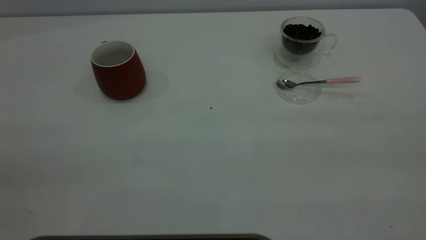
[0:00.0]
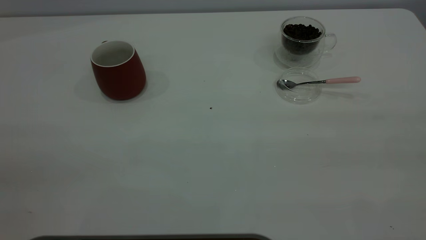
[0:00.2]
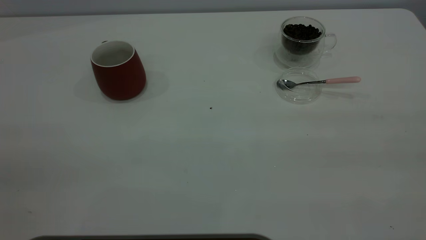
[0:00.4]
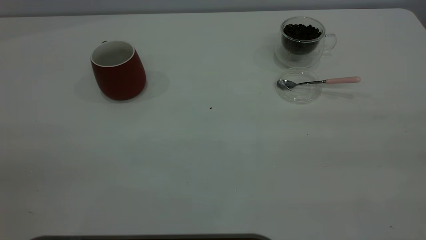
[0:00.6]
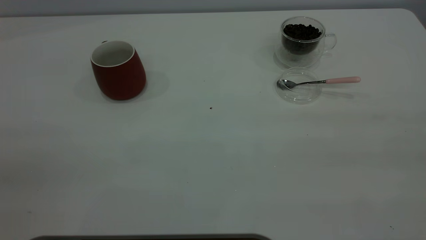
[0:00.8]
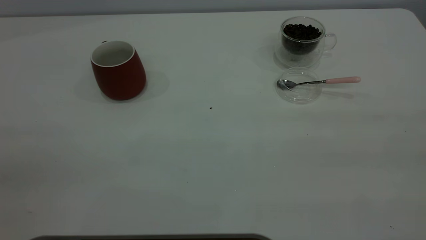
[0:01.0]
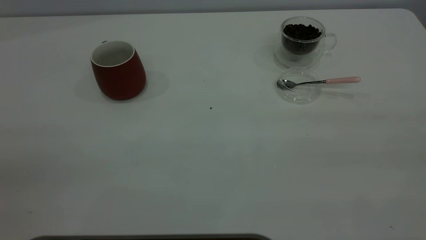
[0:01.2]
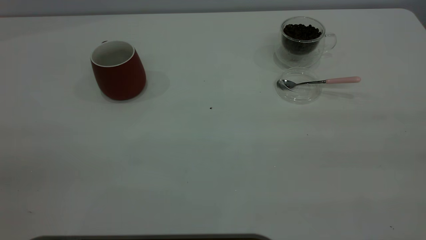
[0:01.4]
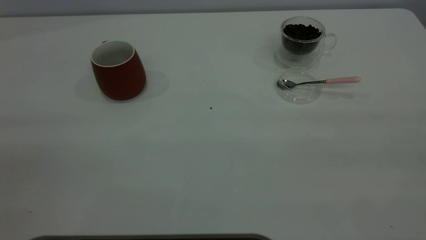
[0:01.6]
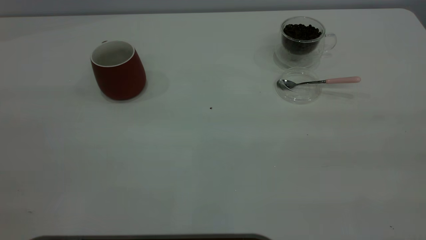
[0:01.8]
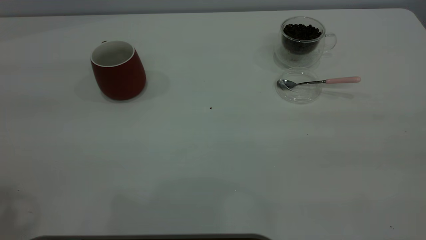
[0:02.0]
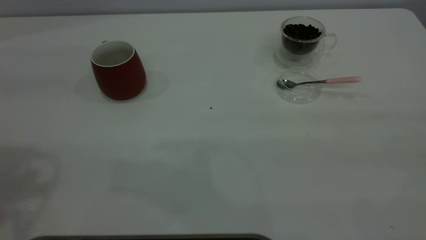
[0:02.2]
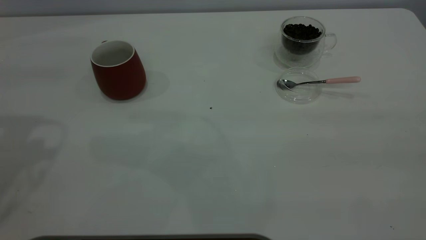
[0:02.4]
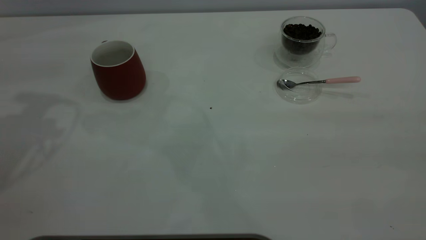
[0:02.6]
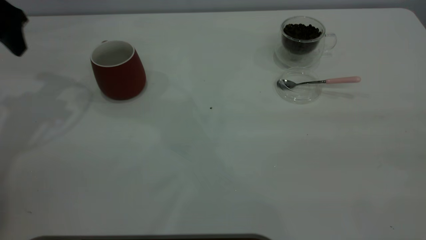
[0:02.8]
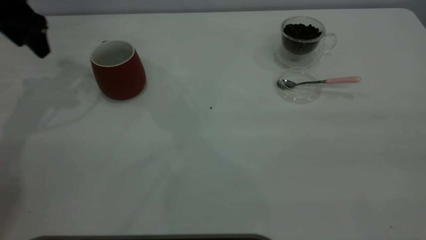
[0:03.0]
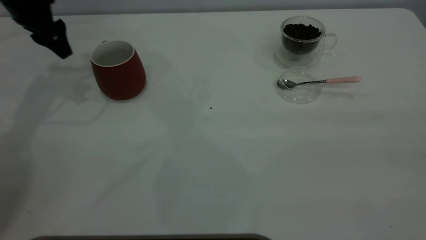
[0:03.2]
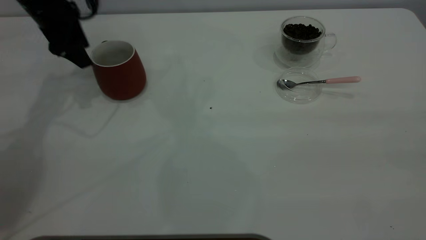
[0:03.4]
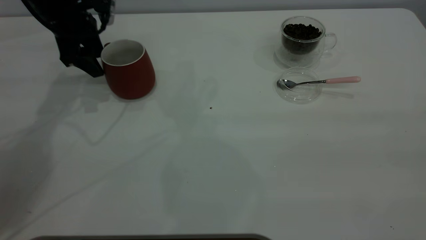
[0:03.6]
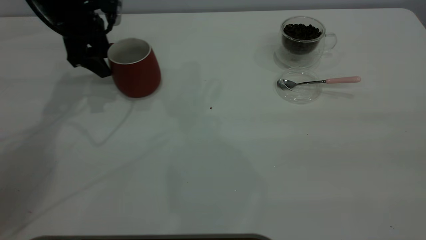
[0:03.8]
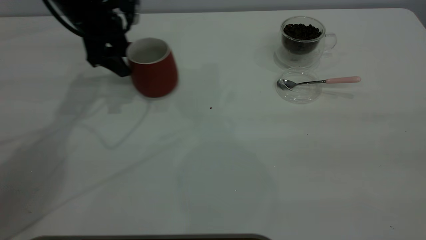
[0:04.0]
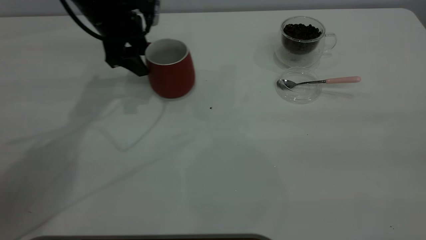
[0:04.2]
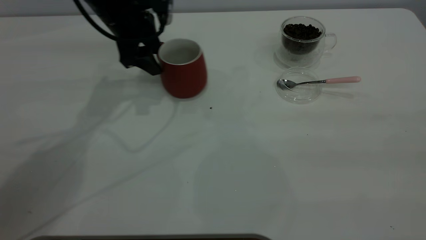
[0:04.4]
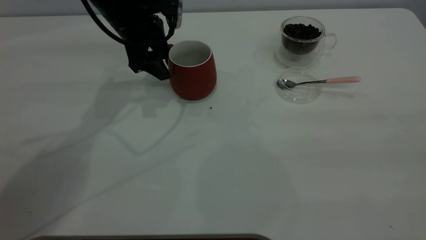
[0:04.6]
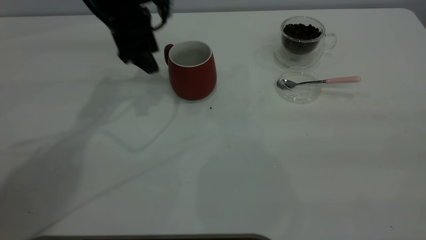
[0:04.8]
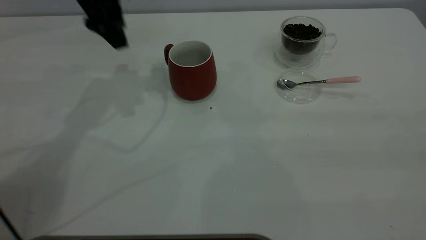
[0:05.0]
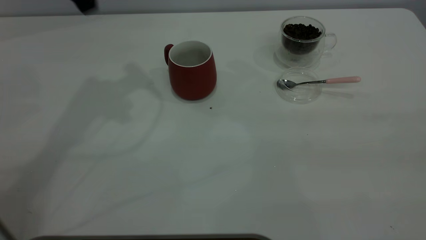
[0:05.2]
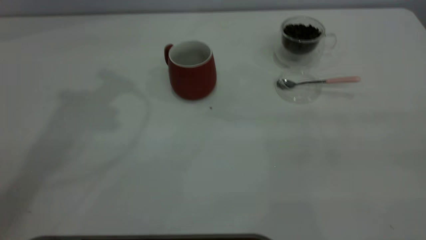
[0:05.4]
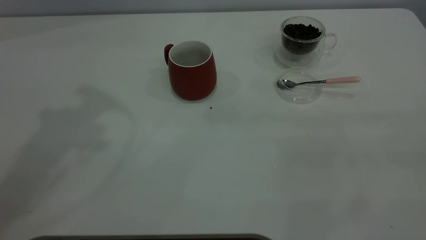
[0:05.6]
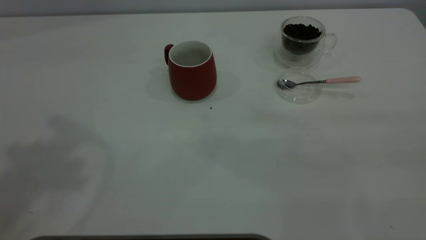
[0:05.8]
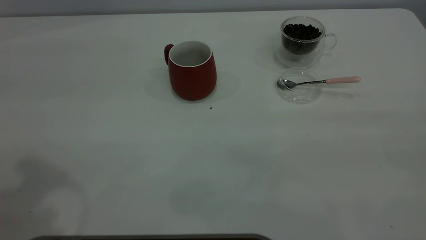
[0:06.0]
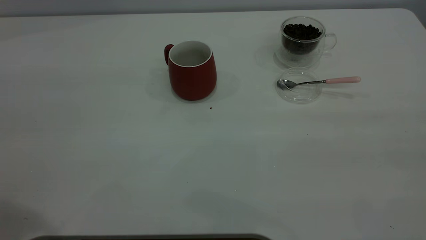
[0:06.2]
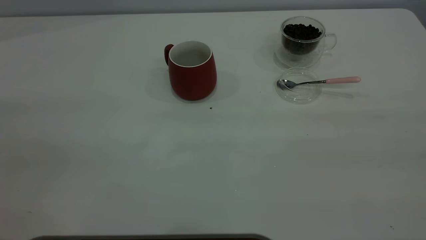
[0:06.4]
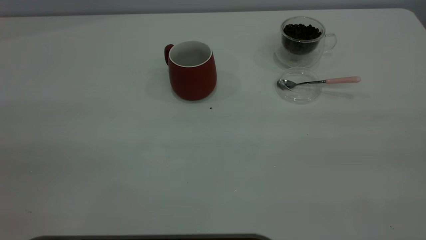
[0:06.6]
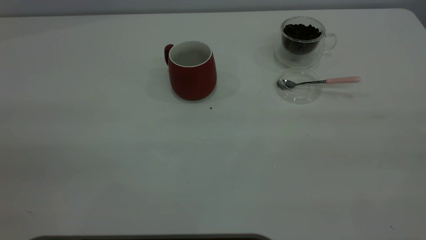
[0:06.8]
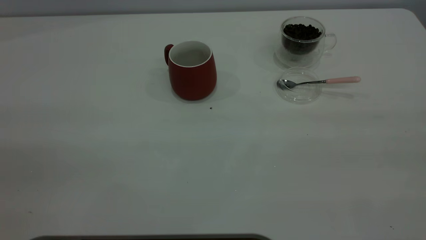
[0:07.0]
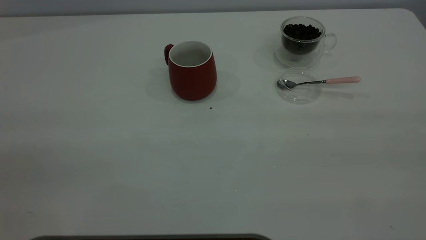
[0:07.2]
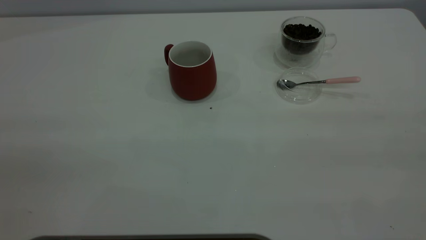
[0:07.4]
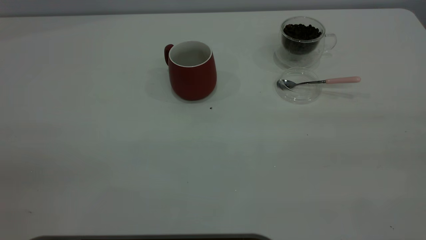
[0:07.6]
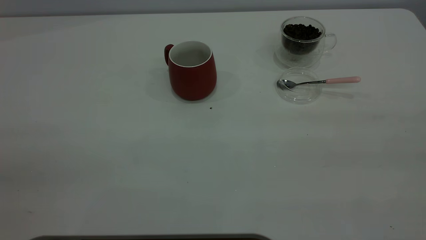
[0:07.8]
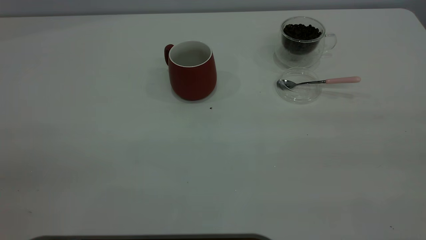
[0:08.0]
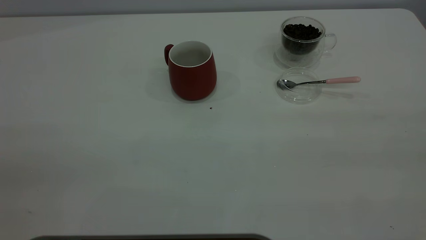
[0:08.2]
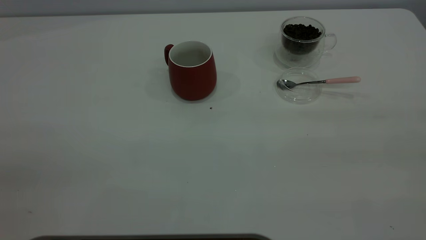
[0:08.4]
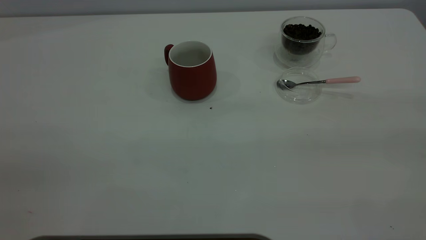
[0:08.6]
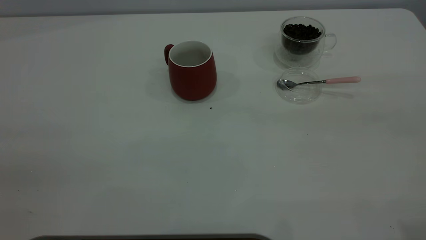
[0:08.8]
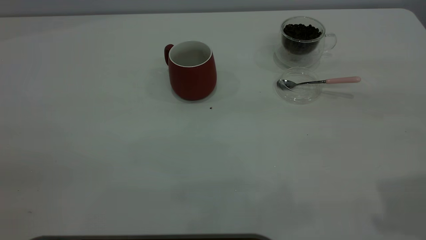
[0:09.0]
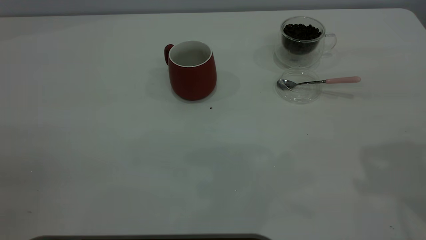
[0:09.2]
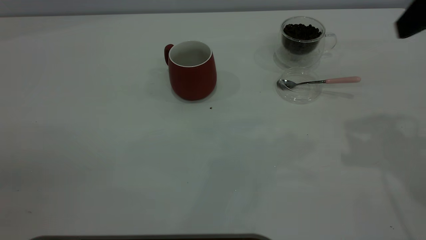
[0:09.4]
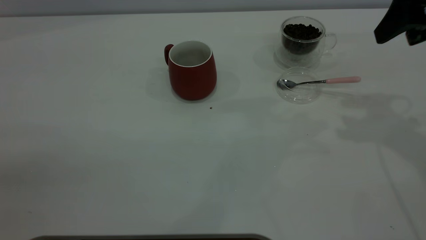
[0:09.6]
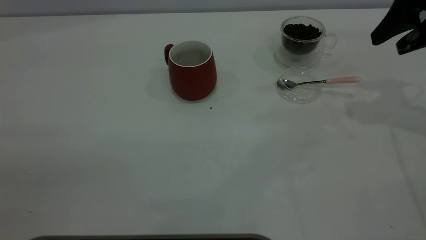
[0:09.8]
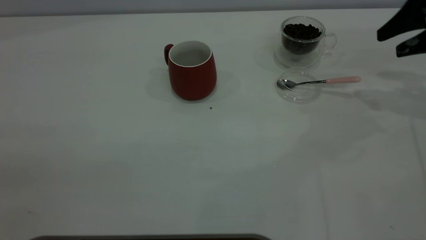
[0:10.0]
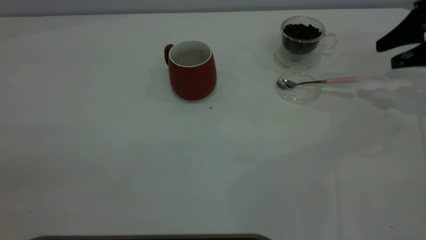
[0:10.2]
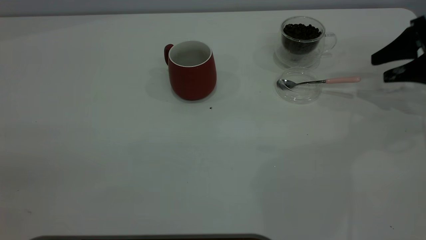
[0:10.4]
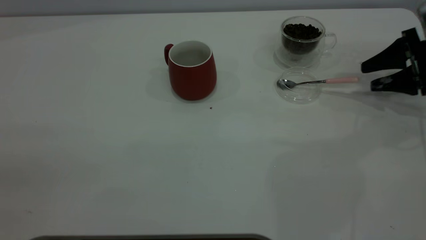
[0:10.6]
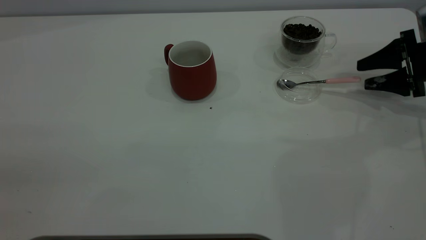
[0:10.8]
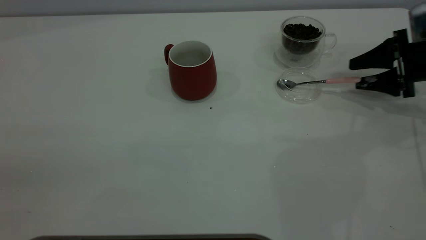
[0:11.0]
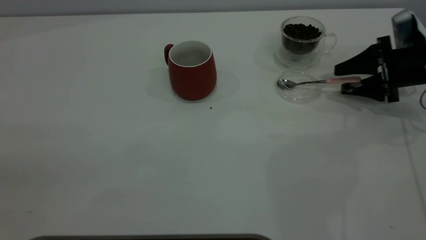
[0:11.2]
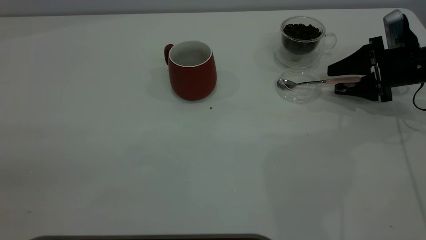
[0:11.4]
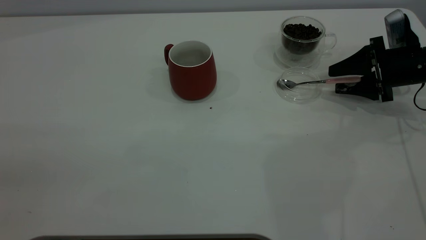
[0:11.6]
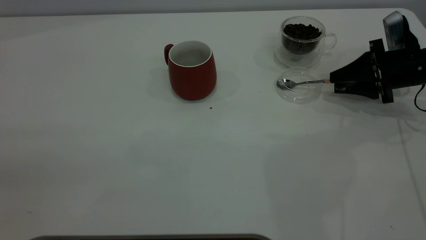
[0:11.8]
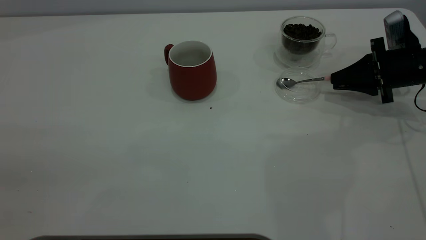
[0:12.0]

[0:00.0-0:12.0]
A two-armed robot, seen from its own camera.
Task of the whole recording: the left gripper place the red cup in the center of the table, the right gripper take the pink spoon from the cup lid and scoop out the coffee beans from the coffee cup and put them into the red cup, the right gripper put the spoon back into the cup lid.
Step, 0:00.0 to 0:04.8: Move the cup to the center of view.
0:01.6 to 0:03.0: The left gripper travels forward by about 40 cm.
0:03.0 to 0:04.4: The left gripper goes about 15 cm to the right.
0:04.4 to 0:06.0: The left gripper moves backward and upward, approximately 40 cm.
0:09.0 to 0:10.4: The right gripper moves downward, forward and to the right, roughly 35 cm.
0:10.4 to 0:12.0: The right gripper is displaced to the left by some 5 cm, and closes.

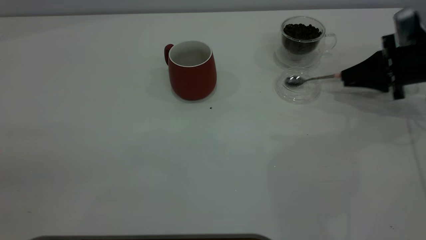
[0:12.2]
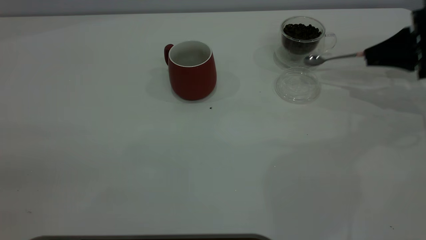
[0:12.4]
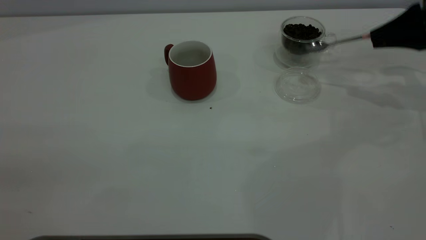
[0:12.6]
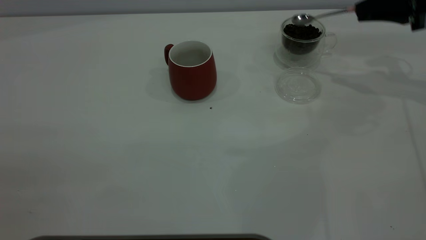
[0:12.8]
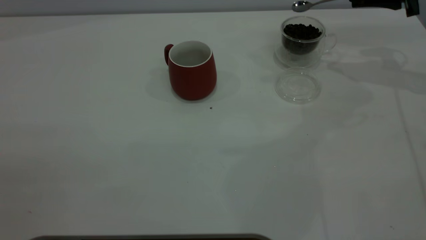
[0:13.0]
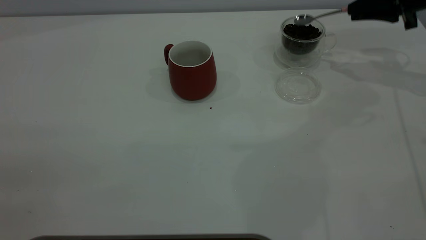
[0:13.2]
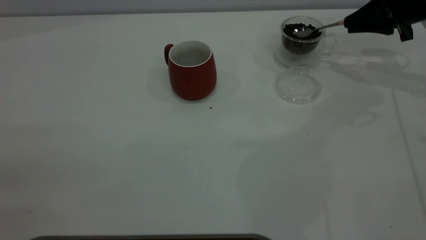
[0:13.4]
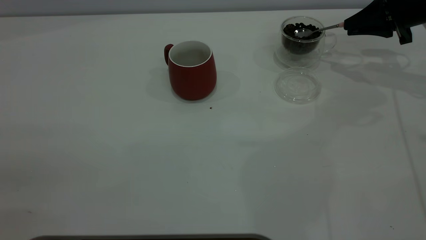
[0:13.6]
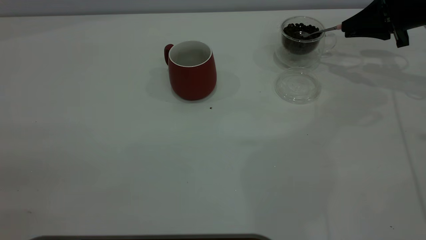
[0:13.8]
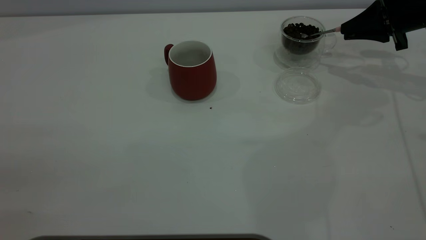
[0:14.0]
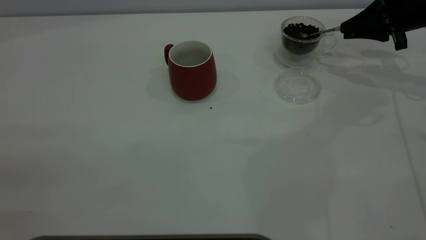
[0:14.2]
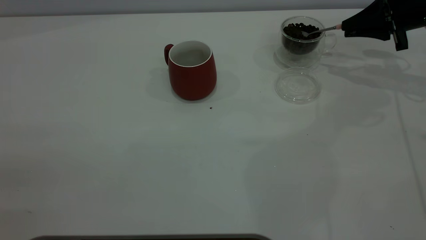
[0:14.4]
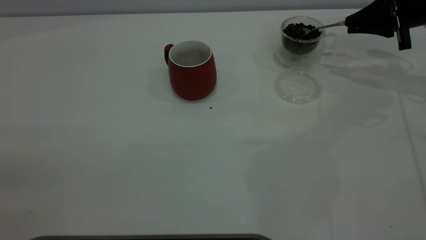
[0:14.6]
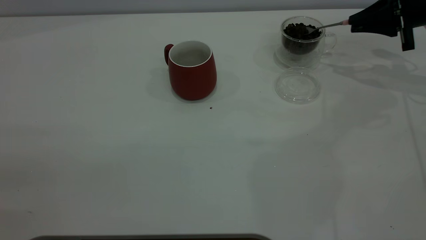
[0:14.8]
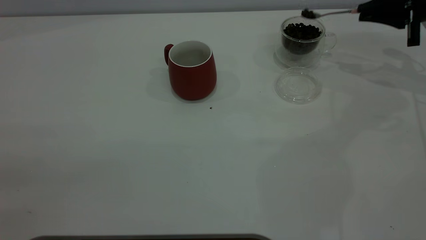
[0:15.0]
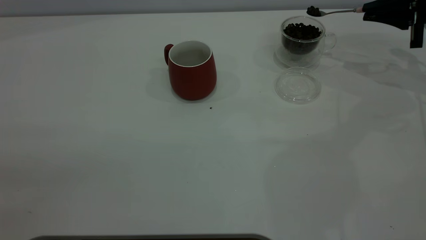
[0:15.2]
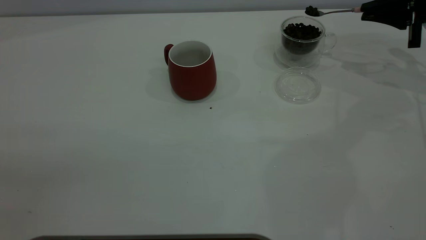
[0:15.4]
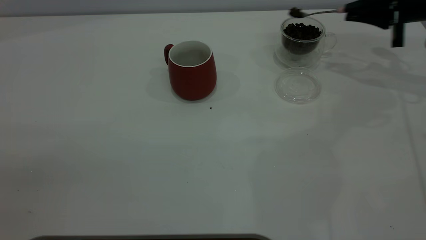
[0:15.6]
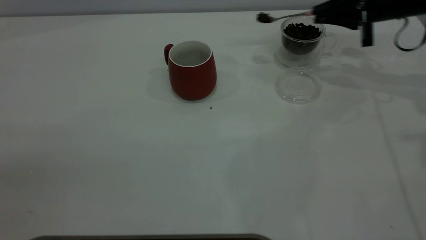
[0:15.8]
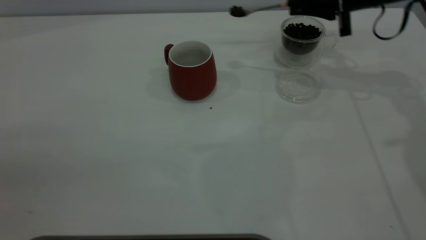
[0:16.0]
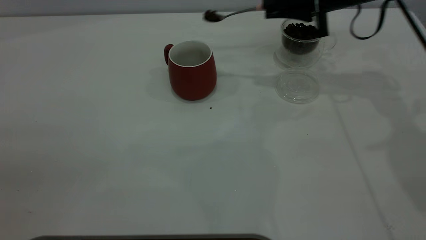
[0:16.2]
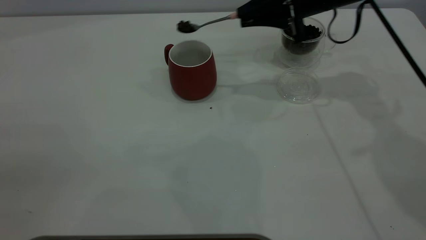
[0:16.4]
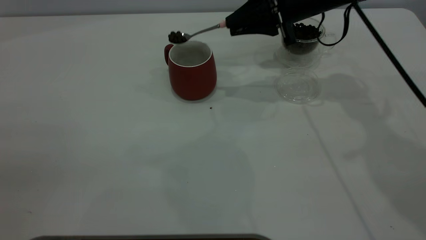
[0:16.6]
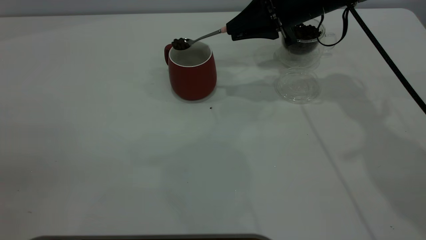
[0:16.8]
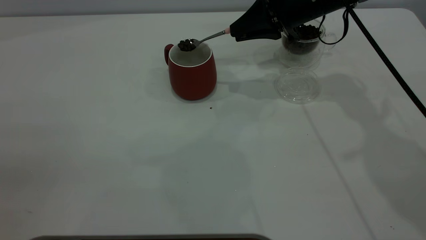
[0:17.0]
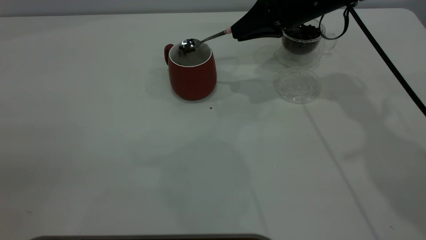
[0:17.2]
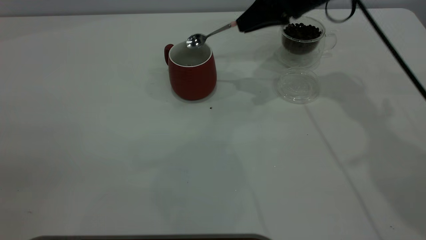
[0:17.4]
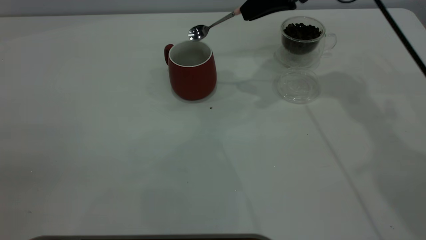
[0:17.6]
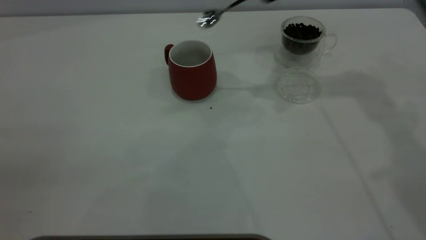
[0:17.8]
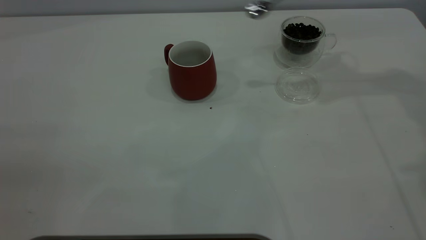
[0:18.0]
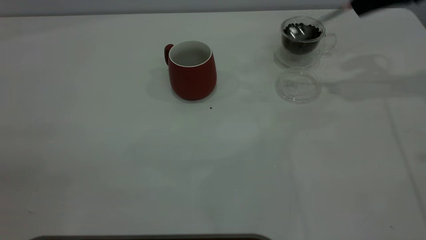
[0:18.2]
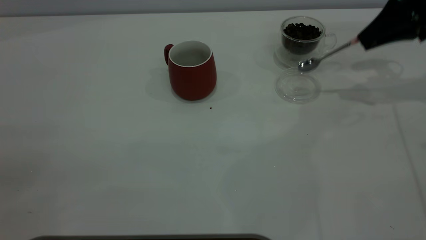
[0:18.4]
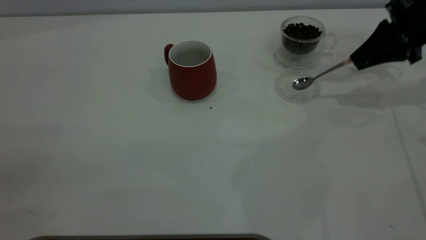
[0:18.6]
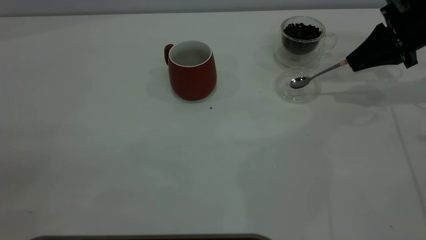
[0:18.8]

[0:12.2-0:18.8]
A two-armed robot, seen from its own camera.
Task of the whole recording: the left gripper place the red cup in the center of the table, the right gripper take the pink spoon from the cup lid and scoop out the coffee beans from the coffee cup and put them into the red cup, the right gripper put the spoon back into the cup lid.
Step, 0:12.4 to 0:17.6: Scoop a spoonful of beans into the cup.
0:12.2 to 0:13.8: The right gripper shifts approximately 10 cm upward and forward.
0:15.4 to 0:17.2: The right gripper travels to the left by approximately 20 cm.
0:17.2 to 0:18.8: The right gripper shifts approximately 20 cm to the right.
